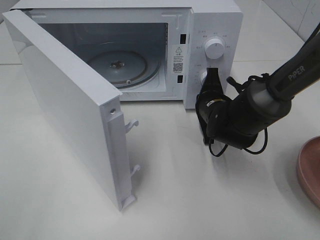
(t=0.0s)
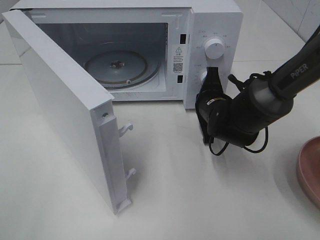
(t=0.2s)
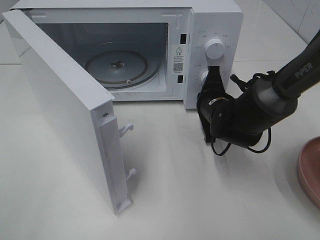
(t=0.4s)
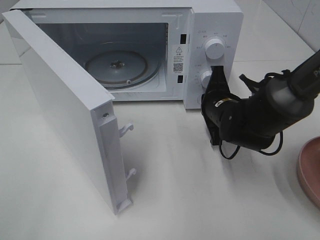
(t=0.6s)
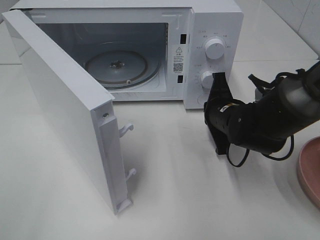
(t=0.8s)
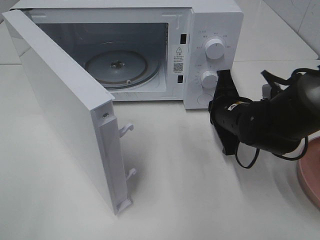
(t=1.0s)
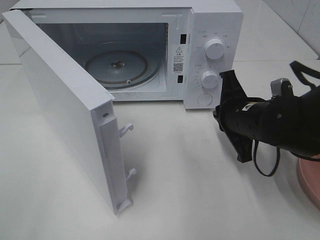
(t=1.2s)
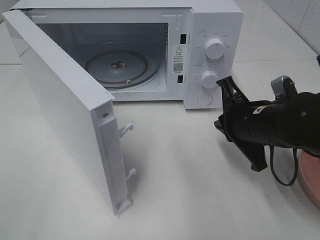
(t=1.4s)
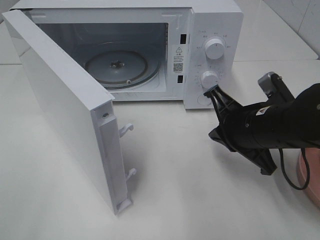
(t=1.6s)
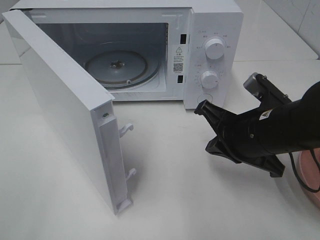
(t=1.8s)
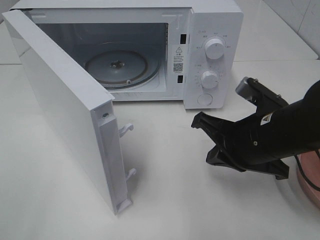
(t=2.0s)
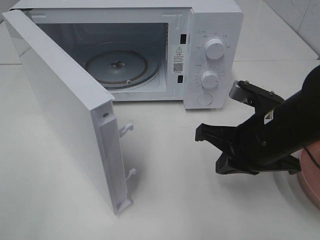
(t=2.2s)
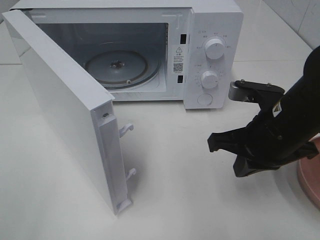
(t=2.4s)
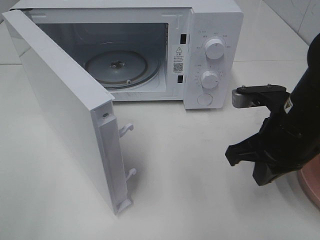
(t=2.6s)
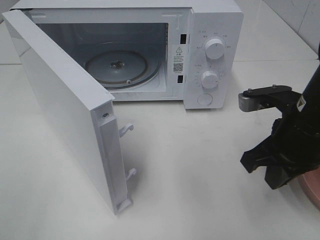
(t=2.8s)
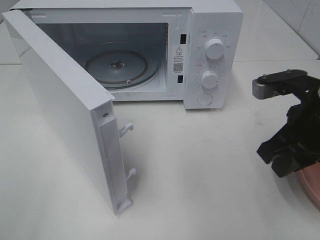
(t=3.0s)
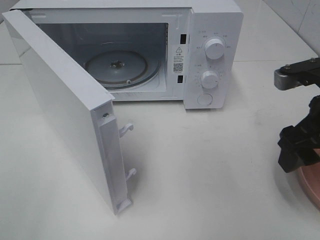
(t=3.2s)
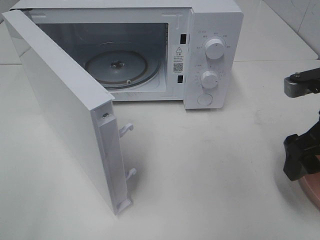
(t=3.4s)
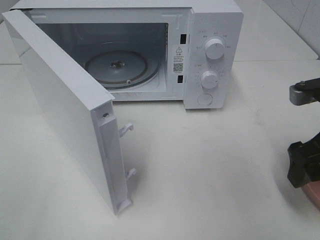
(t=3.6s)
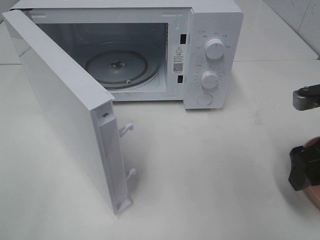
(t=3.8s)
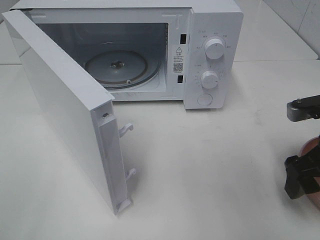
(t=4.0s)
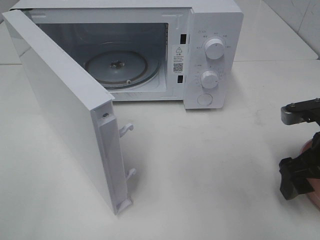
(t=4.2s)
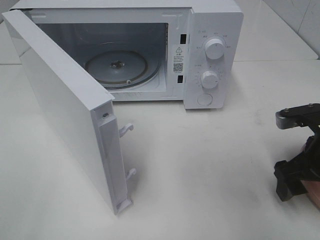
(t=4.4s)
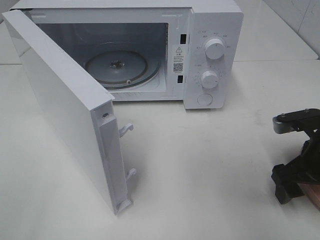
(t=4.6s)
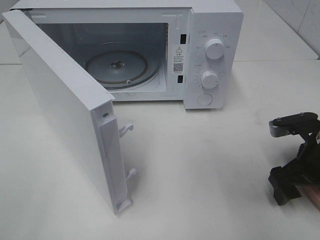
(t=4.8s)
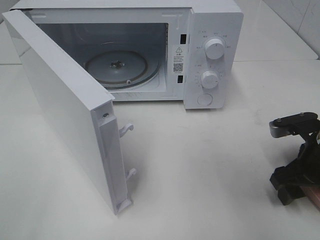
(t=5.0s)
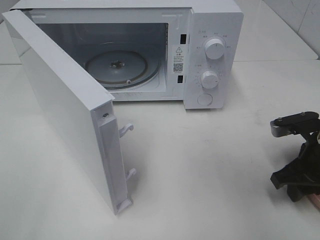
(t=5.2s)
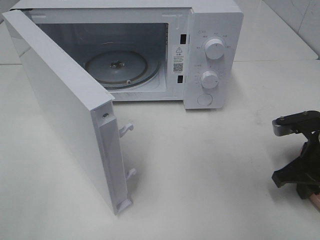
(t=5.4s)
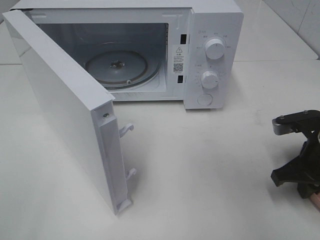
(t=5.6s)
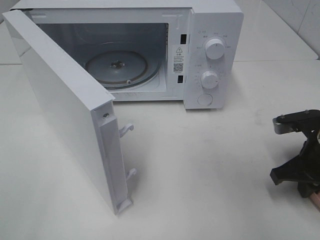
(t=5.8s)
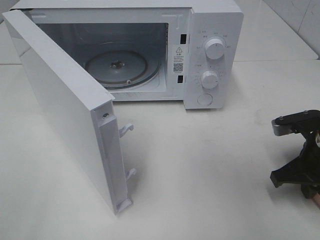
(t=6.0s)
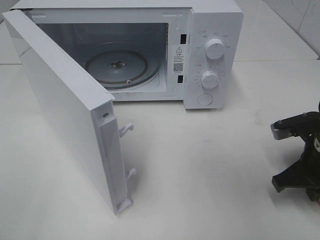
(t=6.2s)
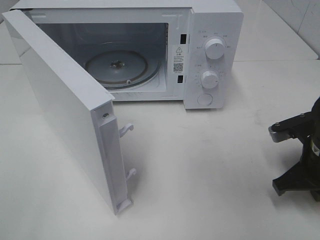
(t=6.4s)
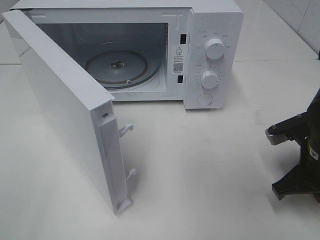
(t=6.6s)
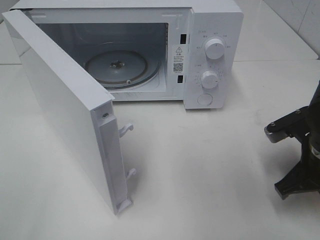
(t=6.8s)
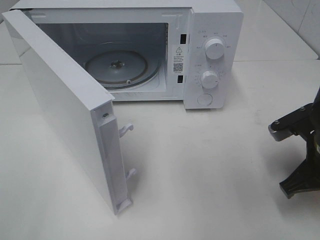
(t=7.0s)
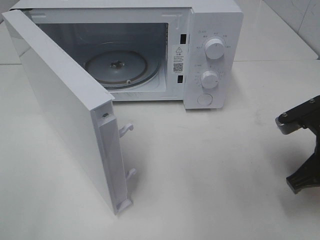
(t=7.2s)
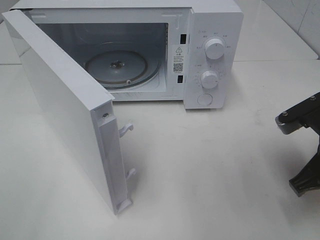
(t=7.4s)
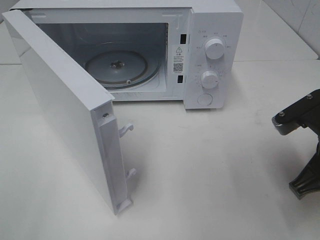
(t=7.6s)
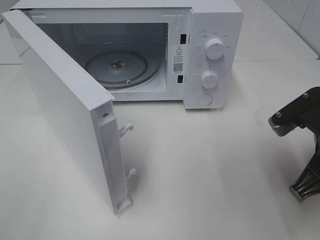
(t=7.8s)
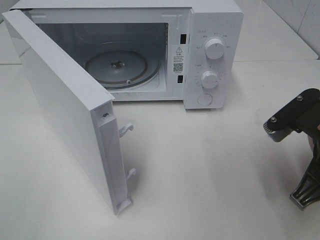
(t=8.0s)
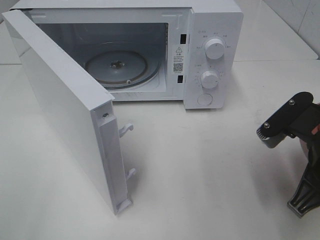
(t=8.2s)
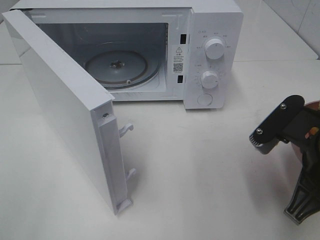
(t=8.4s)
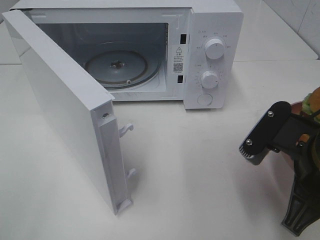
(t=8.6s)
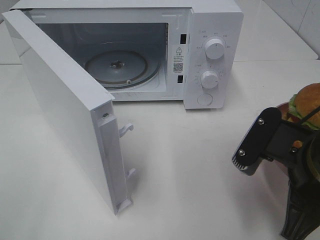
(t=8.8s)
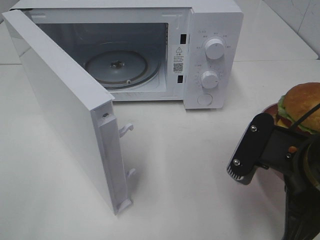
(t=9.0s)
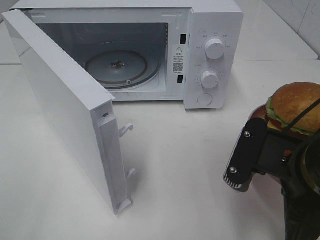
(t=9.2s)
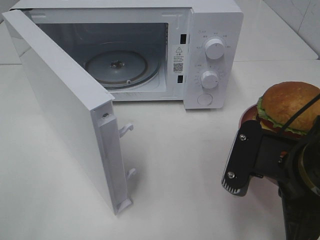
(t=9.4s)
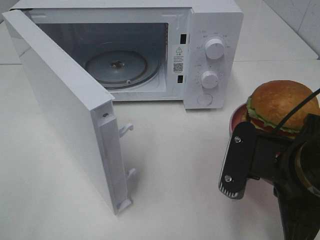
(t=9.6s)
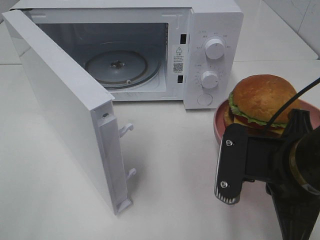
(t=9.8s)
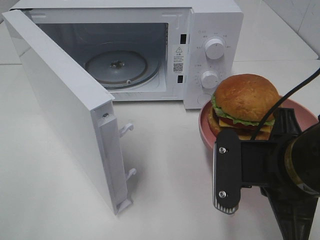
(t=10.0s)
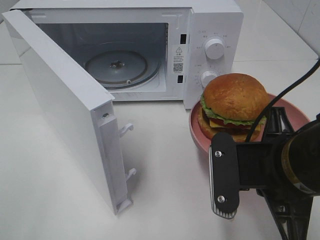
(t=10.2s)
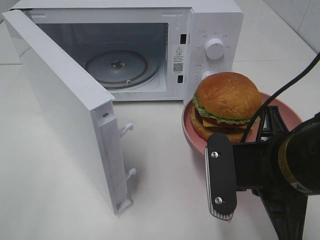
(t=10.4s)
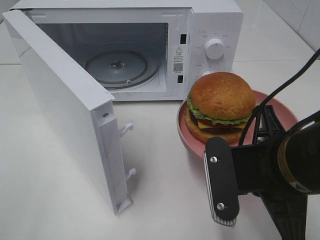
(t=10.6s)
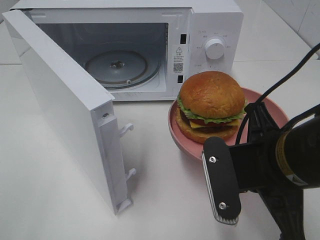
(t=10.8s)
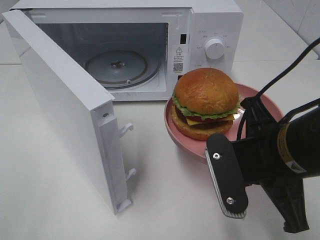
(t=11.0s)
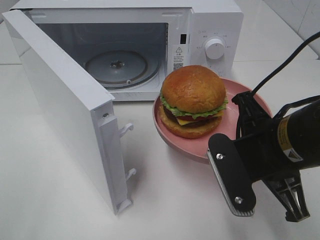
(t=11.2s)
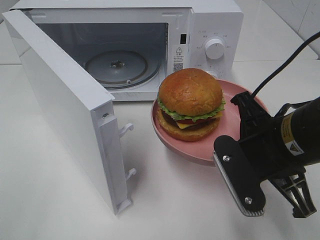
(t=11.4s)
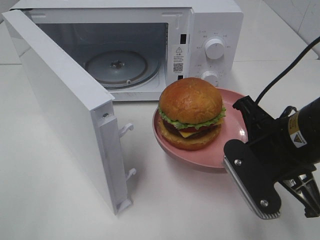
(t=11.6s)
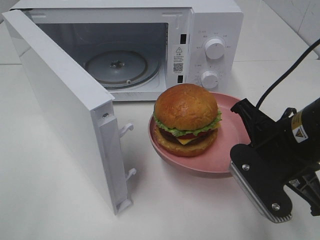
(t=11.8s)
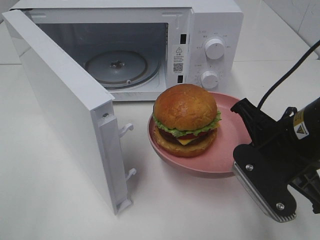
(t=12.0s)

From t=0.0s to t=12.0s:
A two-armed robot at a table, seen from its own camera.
Task of the whole recording: Heat the burger.
Step, from t=0.8s to t=6.0s: Right hand: grab the plate with the hamburger.
From t=0.0s to t=1.6s: The right gripper moves backward and upward, some 15 cm.
From t=1.6s to t=3.0s: The right gripper heads upward and to the right, covering about 10 cm, and opens its fingers.
From t=3.0s to t=4.4s: The right gripper is displaced downward and to the right by about 10 cm, and opens its fingers.
From t=4.4s to t=6.0s: The right gripper closes up.
From t=6.0s to t=7.6s: The right gripper travels upward by about 5 cm.
From t=7.6s to t=9.0s: The right gripper is displaced to the left and backward by roughly 10 cm.
From t=10.4s to t=12.0s: The right gripper shifts by about 5 cm.

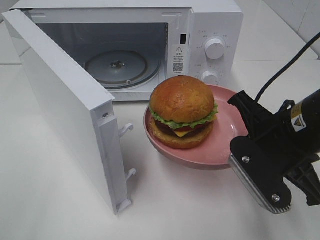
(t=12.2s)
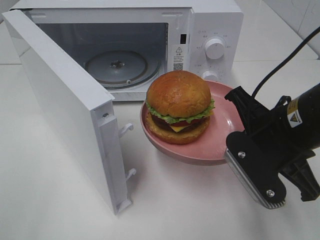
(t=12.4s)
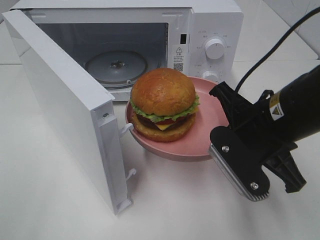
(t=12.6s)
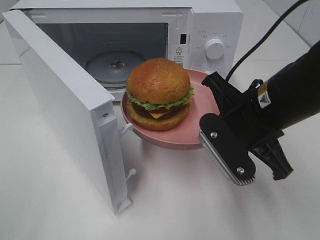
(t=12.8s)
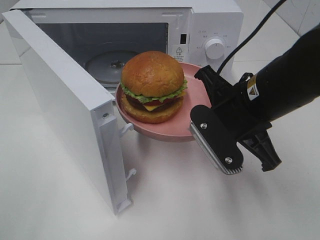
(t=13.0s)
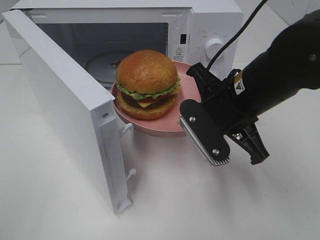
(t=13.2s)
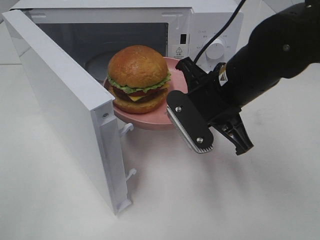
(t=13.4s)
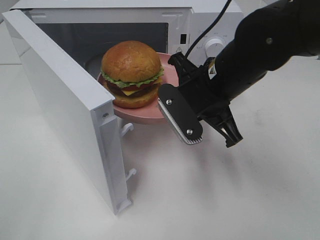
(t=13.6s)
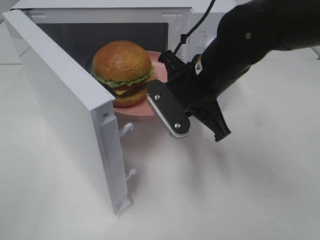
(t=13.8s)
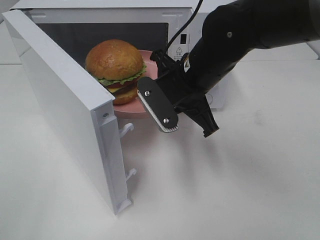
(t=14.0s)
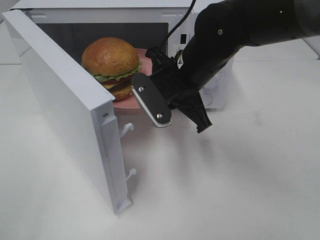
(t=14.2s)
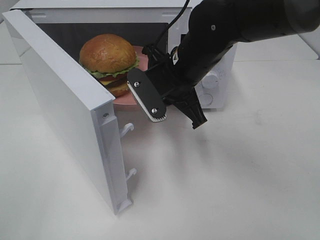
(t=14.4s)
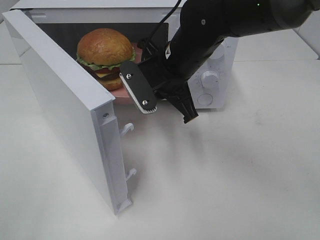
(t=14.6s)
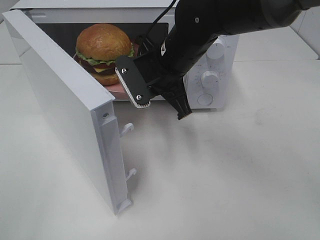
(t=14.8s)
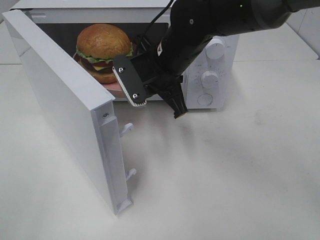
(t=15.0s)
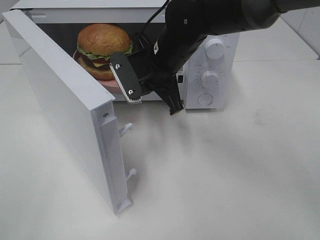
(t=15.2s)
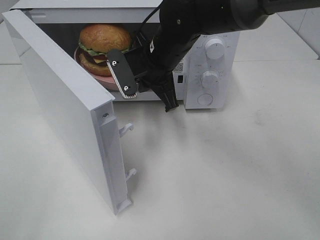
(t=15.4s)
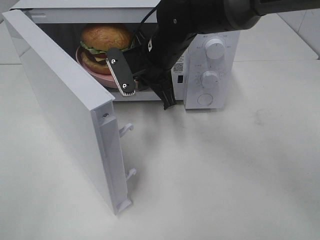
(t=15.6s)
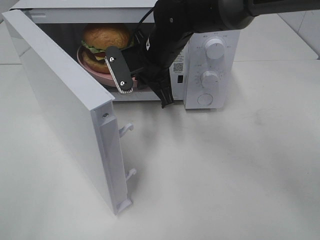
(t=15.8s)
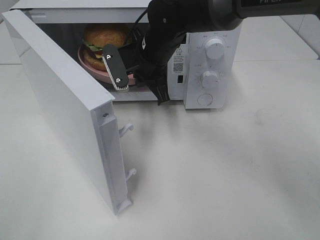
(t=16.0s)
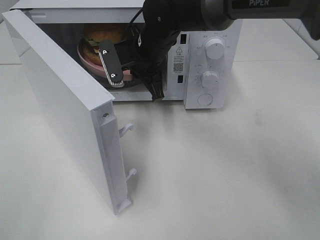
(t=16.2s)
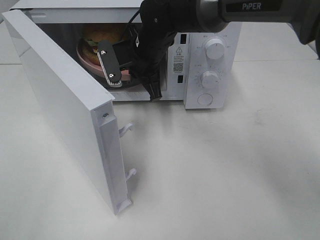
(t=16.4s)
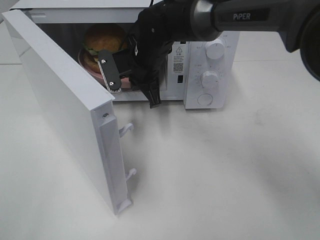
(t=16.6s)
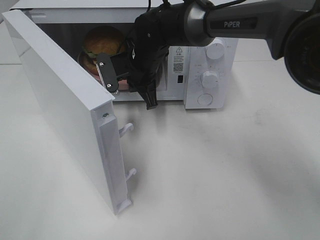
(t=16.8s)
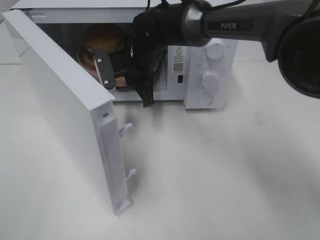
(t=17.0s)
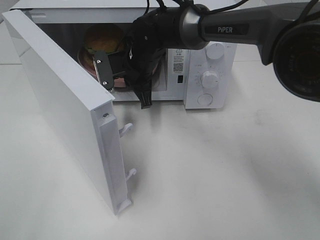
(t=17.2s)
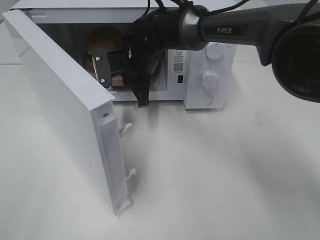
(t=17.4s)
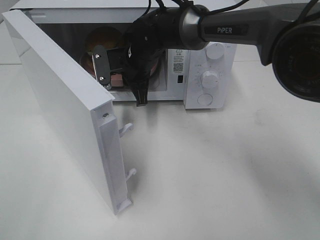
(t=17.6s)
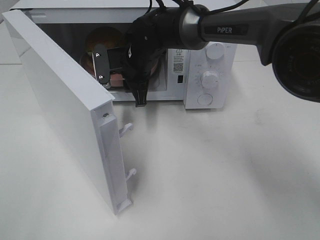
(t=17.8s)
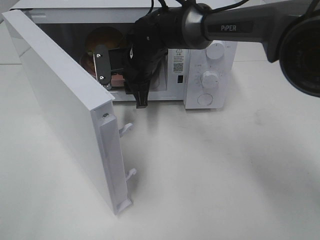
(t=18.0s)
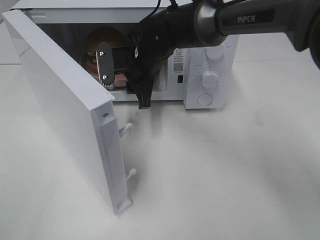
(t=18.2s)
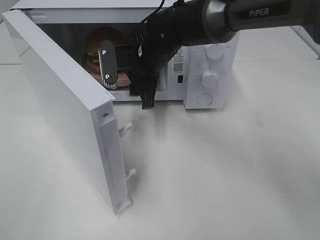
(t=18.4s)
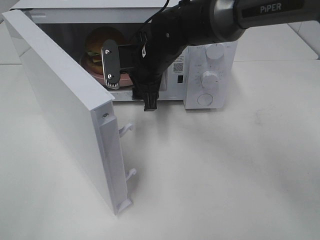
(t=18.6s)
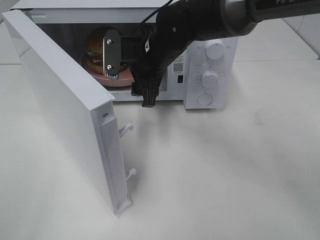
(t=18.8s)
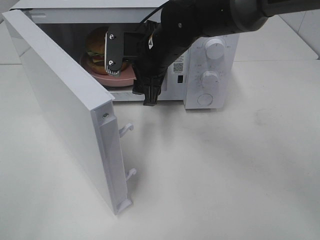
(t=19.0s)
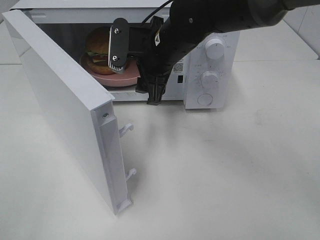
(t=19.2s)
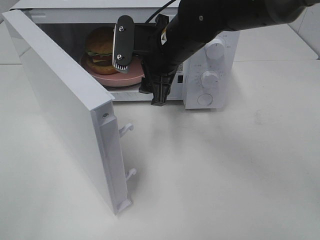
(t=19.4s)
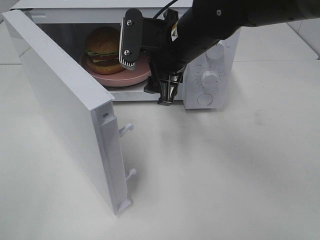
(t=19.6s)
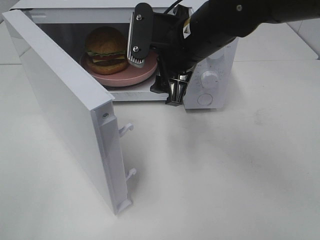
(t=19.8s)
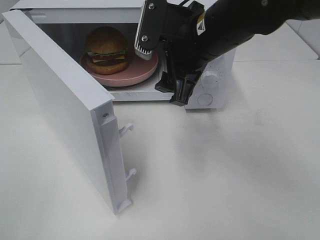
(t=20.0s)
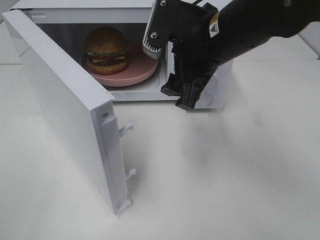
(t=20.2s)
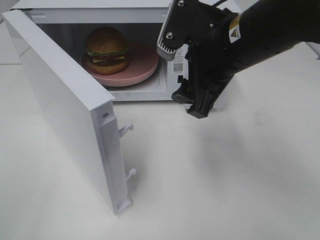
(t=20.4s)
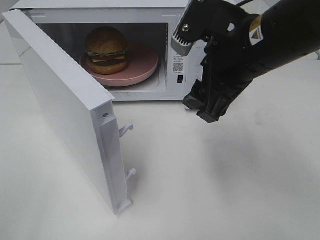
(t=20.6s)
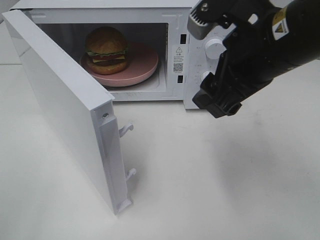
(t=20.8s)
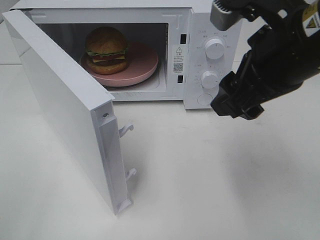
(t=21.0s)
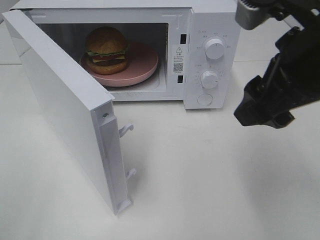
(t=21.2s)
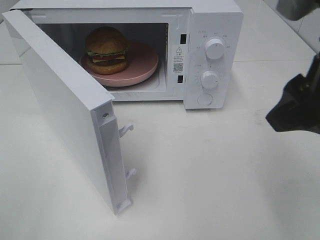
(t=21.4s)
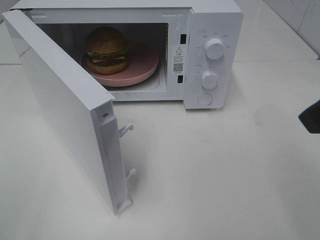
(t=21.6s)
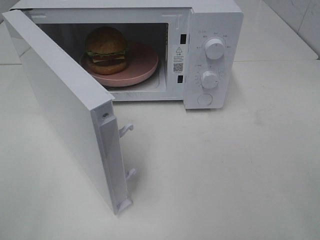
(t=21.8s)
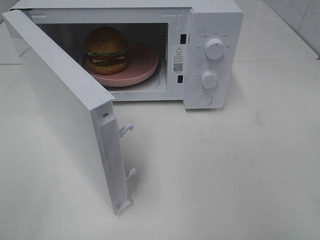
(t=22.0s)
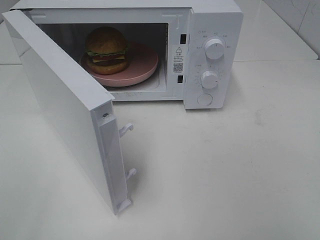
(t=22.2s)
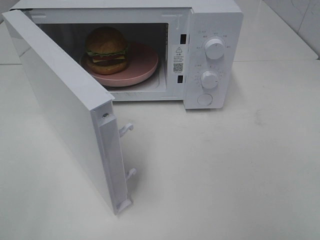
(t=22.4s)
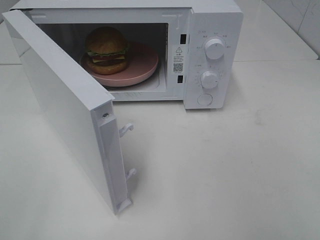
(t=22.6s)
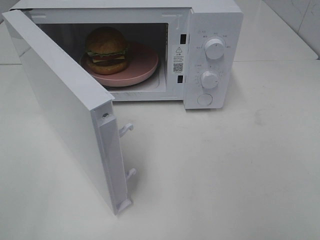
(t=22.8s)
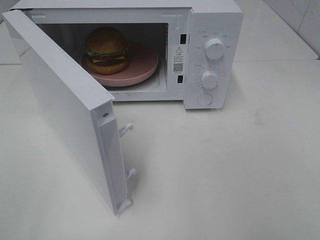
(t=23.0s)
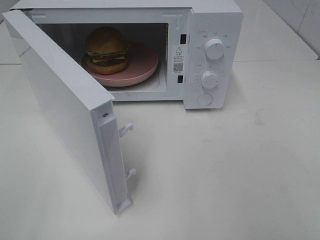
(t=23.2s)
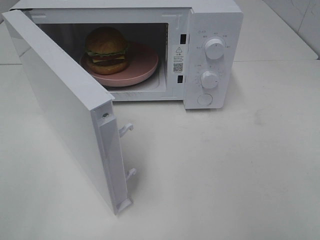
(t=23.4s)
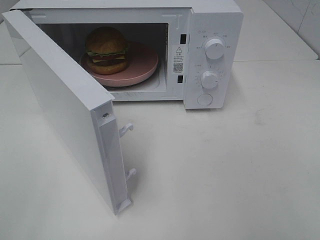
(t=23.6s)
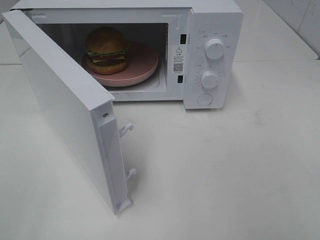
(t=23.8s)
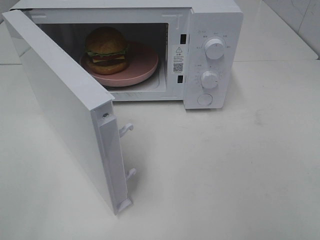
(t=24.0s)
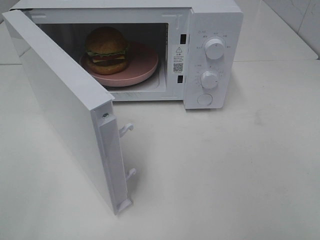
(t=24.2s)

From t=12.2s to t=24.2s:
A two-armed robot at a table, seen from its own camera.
Task of the whole recording: Heat the burger.
Step, from t=12.2s to t=17.6s: Right hand: place the plate in the microwave.
From t=12.2s to t=13.8s: The right gripper moves forward and to the left, roughly 15 cm.
From t=13.8s to t=15.2s: The right gripper travels forward and to the left by about 10 cm.
From t=15.2s to t=16.6s: The right gripper is displaced forward by about 5 cm.
From t=16.6s to t=18.2s: The right gripper opens.
From t=18.2s to t=19.8s: The right gripper shifts some 15 cm backward, upward and to the right.
From t=19.8s to t=21.2s: The right gripper moves backward, to the right and upward, roughly 20 cm.
From t=21.2s to t=22.6s: The right gripper shifts roughly 20 cm backward and to the right.
